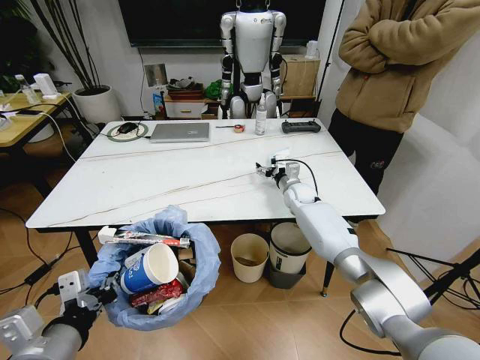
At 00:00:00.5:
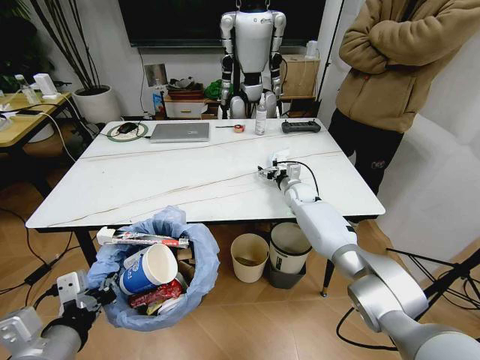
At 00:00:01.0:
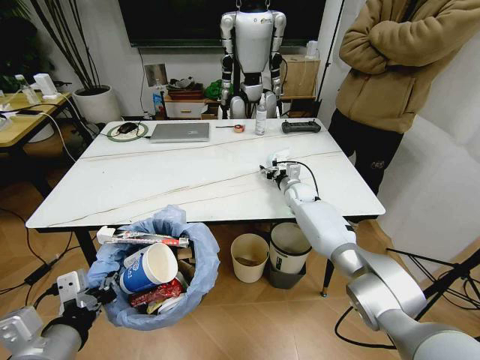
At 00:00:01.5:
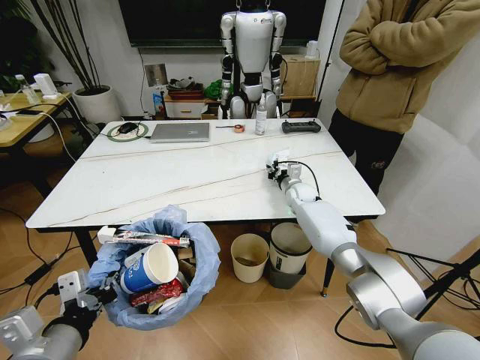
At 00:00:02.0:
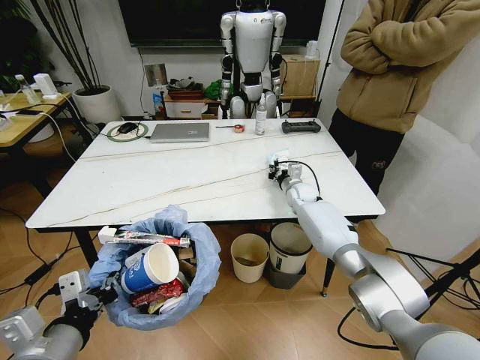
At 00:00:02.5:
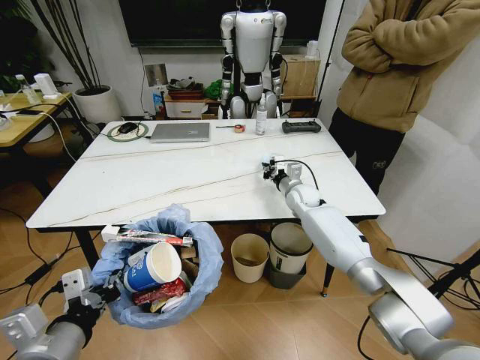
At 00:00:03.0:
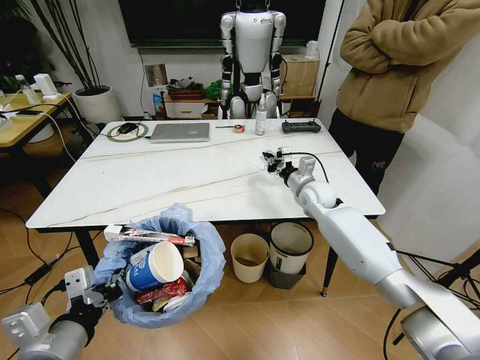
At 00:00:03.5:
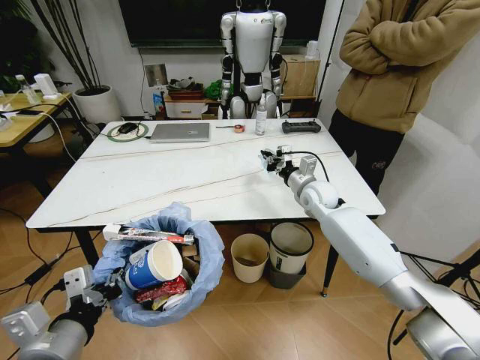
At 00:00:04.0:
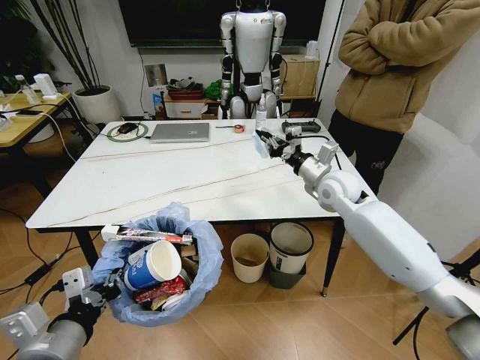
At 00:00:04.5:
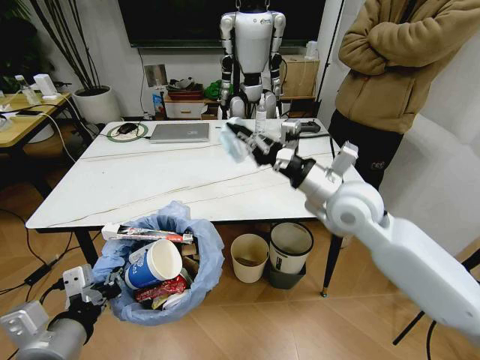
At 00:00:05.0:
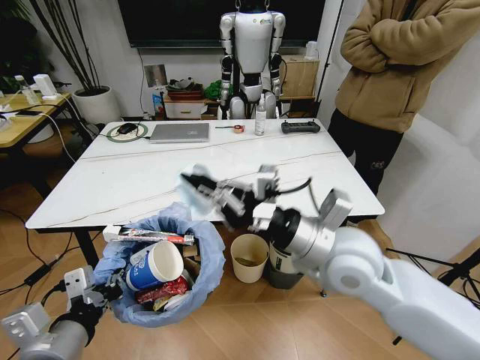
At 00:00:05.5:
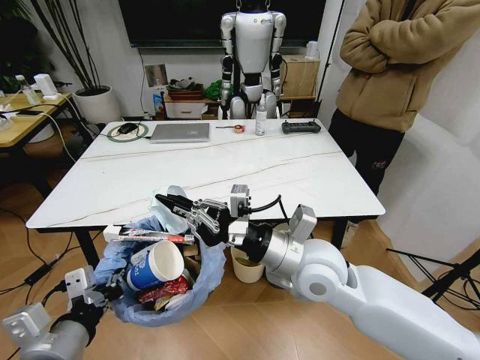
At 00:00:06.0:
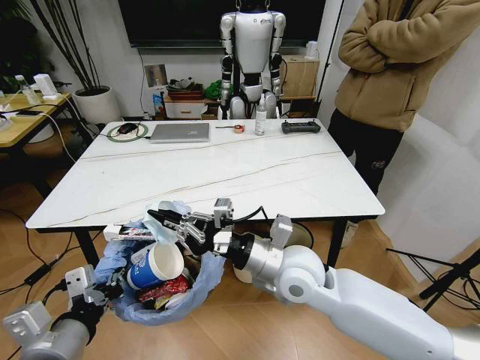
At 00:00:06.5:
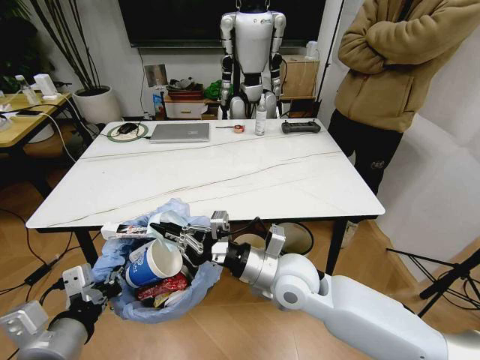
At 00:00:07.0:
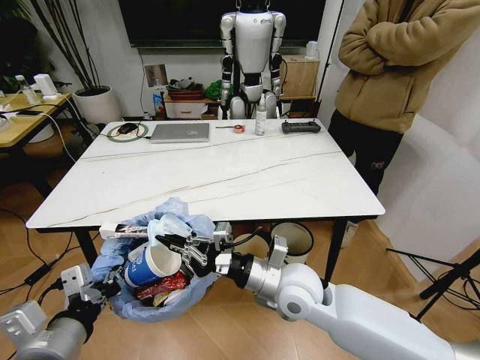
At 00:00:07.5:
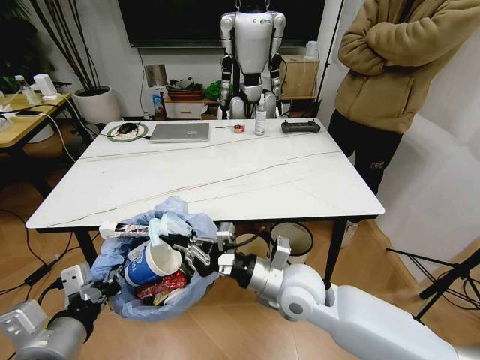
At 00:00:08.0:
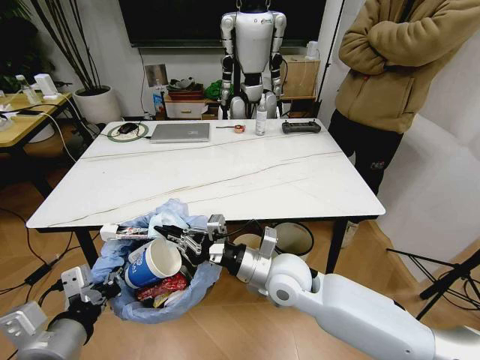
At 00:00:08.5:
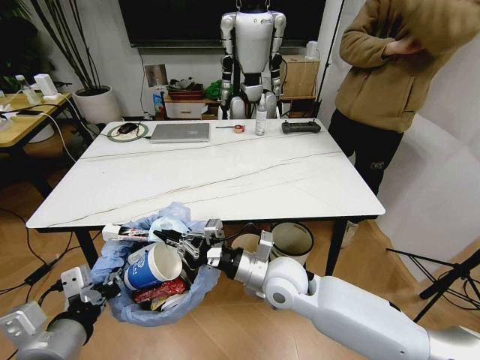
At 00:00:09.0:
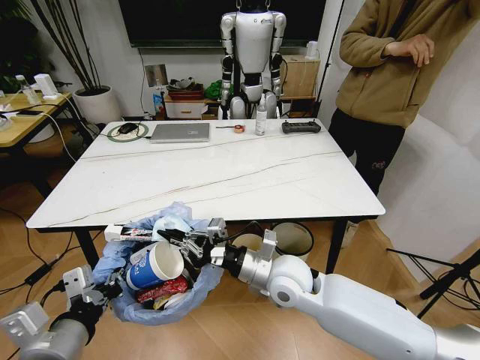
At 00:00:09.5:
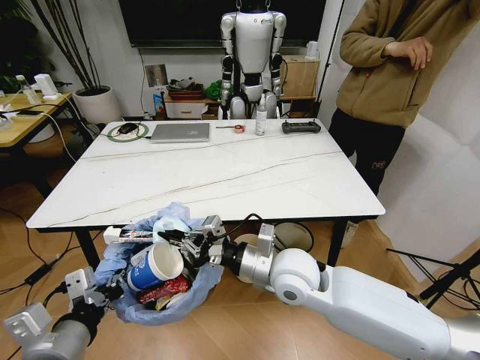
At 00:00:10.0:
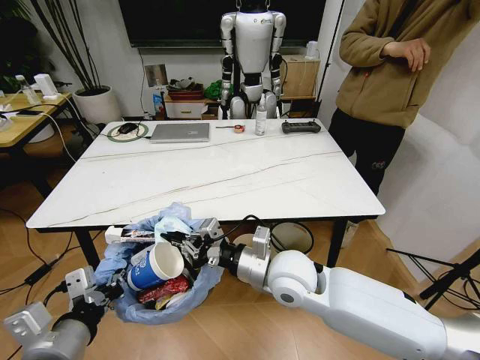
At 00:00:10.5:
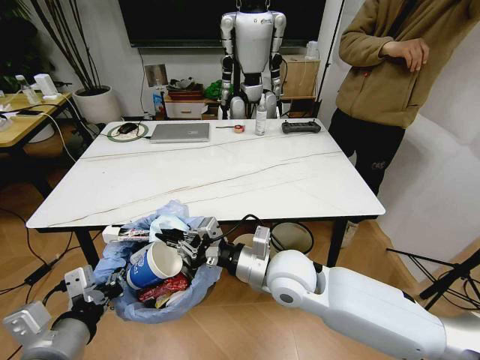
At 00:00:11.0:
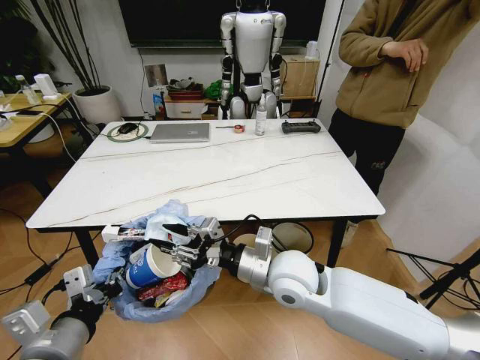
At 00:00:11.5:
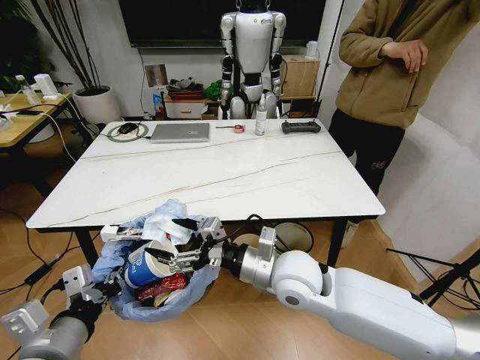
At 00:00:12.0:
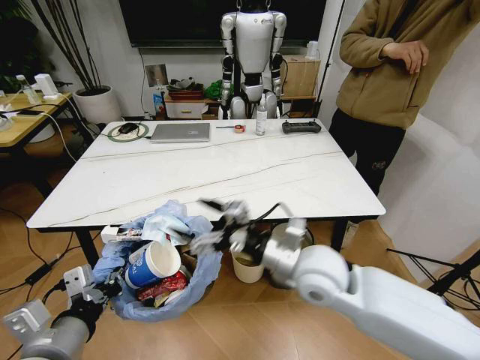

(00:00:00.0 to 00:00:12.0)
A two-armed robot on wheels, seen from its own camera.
Task of the whole recording: Pick up the trash bin and place the trash from the table into it.
00:00:00.0 - 00:00:02.0: The right gripper closes up.
00:00:02.0 - 00:00:04.0: The right gripper moves upward and backward, roughly 20 cm.
00:00:04.0 - 00:00:06.0: The right gripper goes about 25 cm backward and to the left.
00:00:06.0 - 00:00:08.0: The right gripper heads downward, covering some 5 cm.
00:00:08.0 - 00:00:10.0: The grippers move only a little.
00:00:10.0 - 00:00:12.0: The right gripper moves approximately 5 cm, and opens its fingers.

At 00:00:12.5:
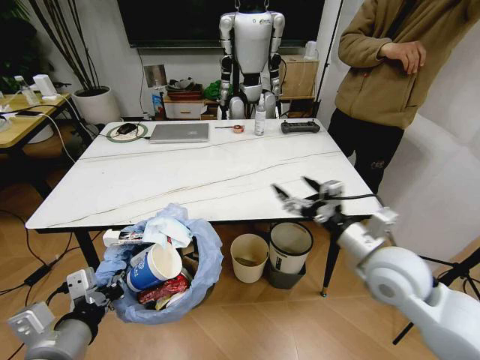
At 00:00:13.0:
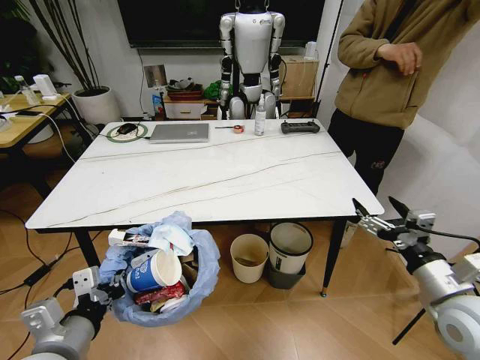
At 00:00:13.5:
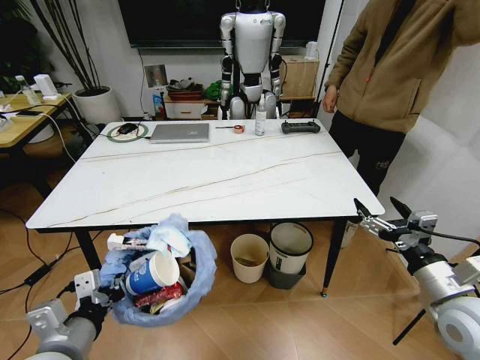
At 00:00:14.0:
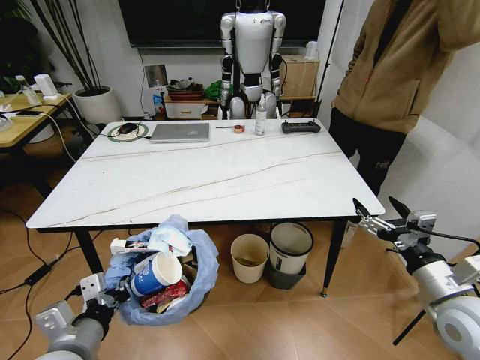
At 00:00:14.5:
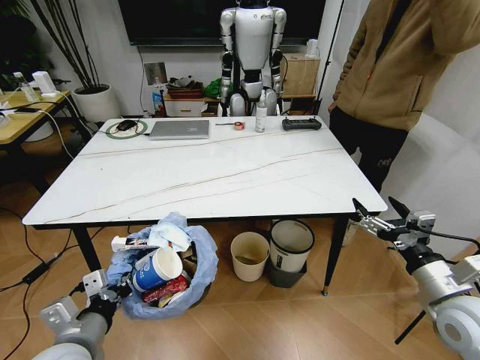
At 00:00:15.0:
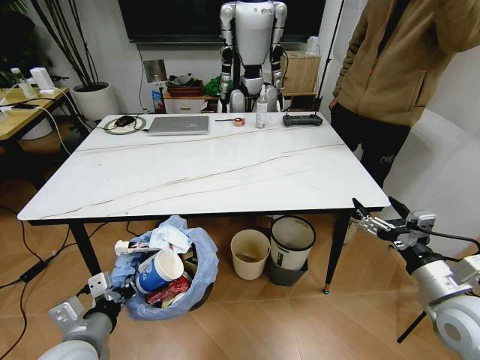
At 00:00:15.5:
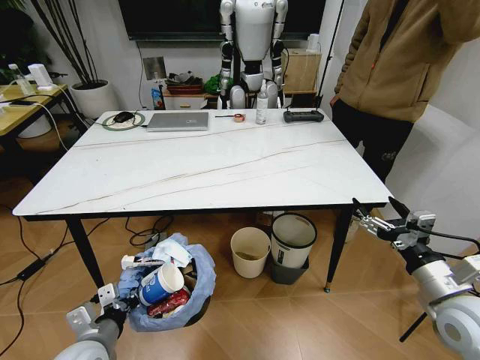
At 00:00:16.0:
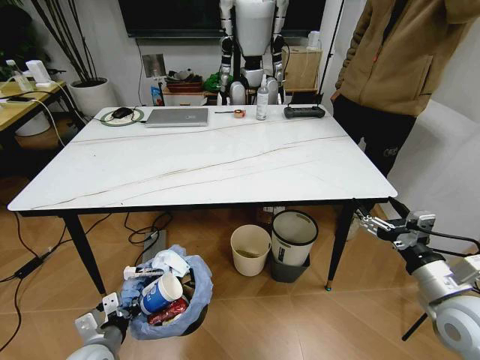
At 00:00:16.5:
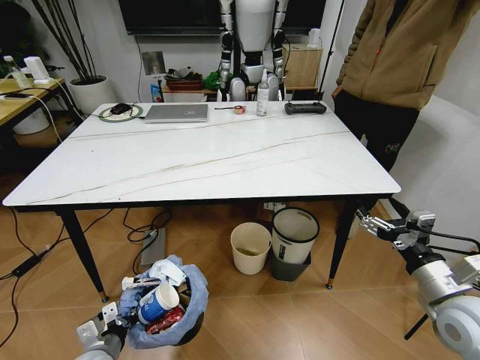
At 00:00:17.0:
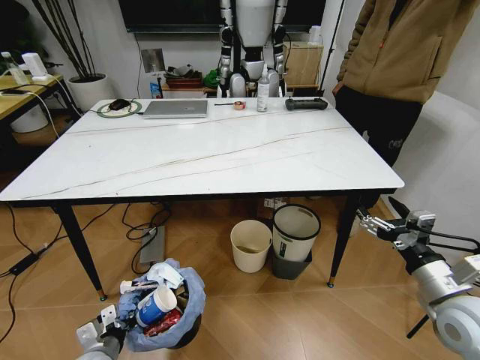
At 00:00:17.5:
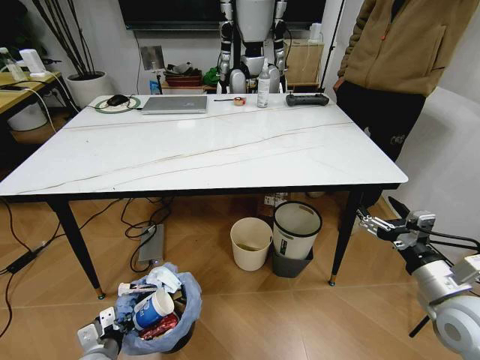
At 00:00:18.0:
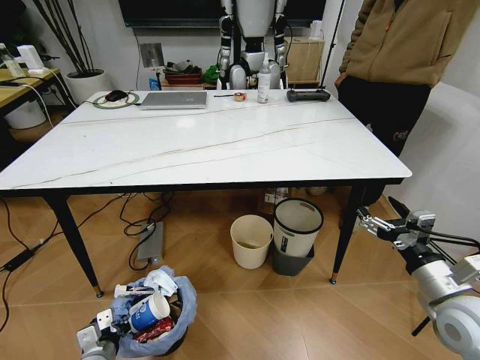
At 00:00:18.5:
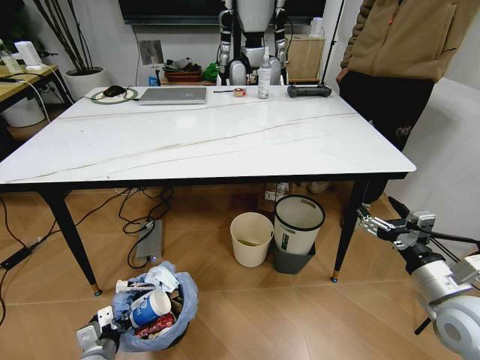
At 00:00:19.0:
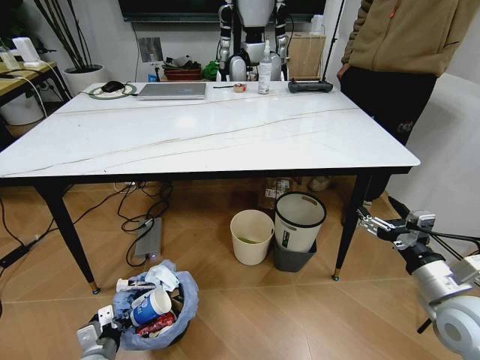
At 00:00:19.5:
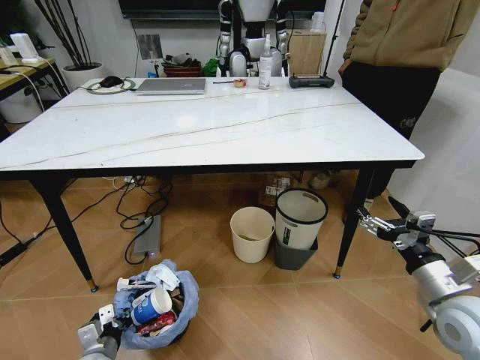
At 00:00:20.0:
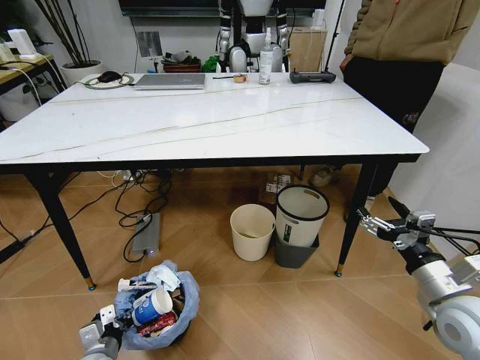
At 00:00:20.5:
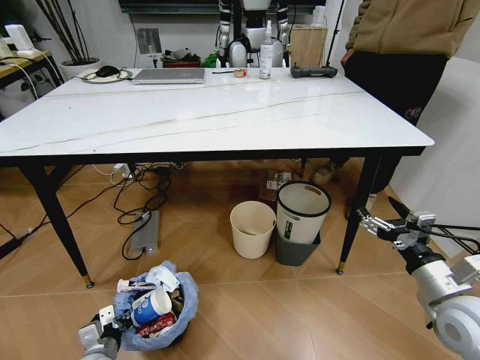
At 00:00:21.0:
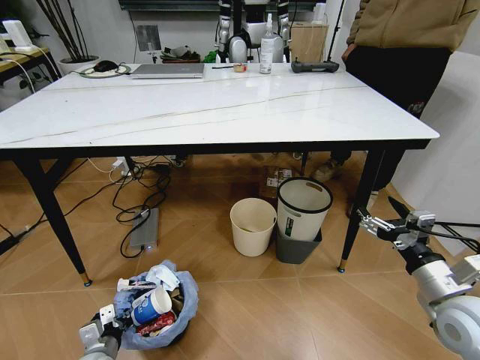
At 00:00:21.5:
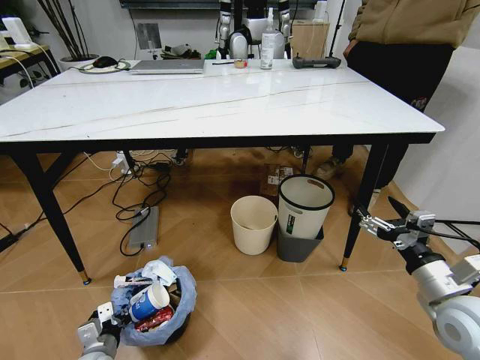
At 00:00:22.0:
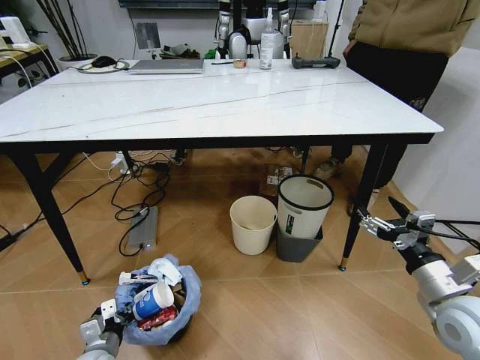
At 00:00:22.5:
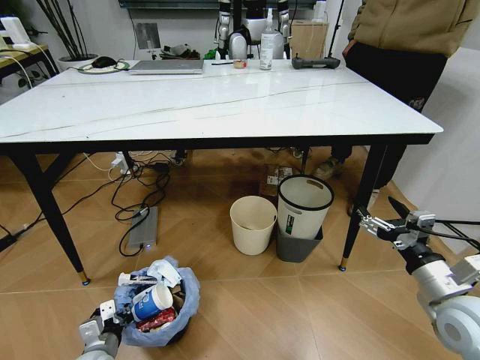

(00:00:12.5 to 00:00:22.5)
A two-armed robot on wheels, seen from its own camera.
Task of the whole recording: Pick up the trash bin and place the trash from the table into it.
00:00:12.5 - 00:00:14.5: The right gripper is displaced to the right and backward by about 15 cm, while the left gripper shifts roughly 5 cm downward.
00:00:14.5 - 00:00:16.5: The left gripper shifts approximately 15 cm downward.

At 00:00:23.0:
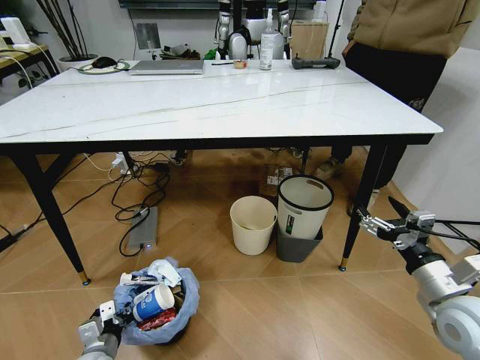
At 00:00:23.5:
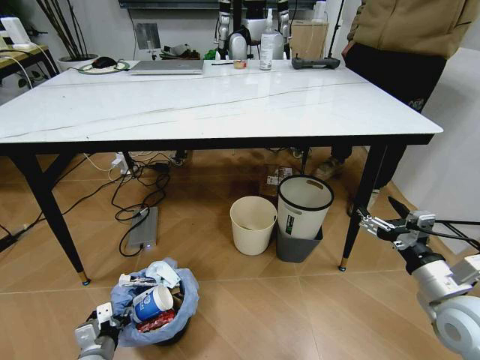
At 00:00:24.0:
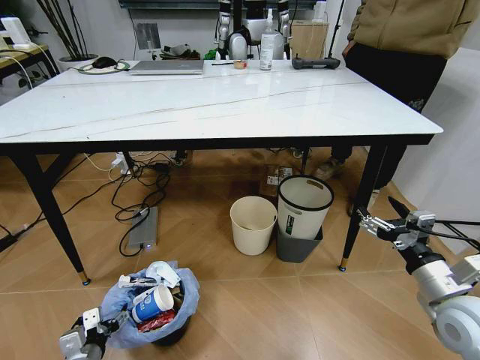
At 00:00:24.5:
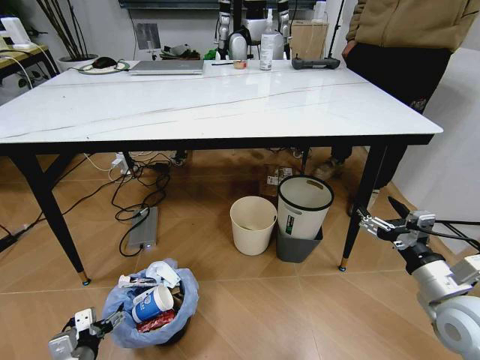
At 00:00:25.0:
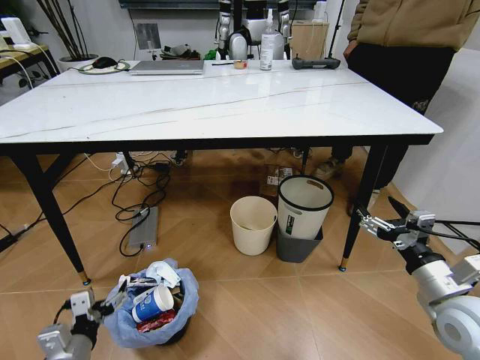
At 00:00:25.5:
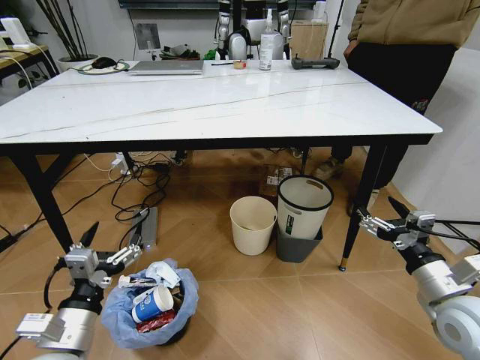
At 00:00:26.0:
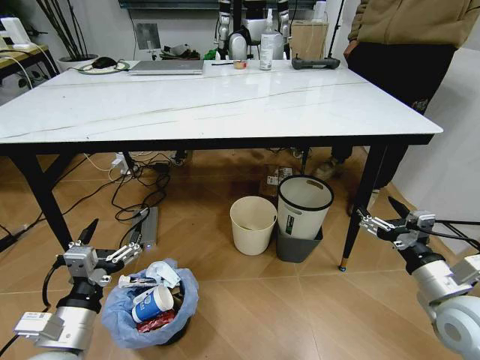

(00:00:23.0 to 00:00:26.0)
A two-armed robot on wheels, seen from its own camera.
Task of the whole recording: Pick up the trash bin and place the trash from the table into it.
00:00:23.0 - 00:00:24.5: The left gripper ends up about 5 cm from where it was, and opens up.
00:00:24.5 - 00:00:26.0: The left gripper goes roughly 20 cm upward and to the right.
